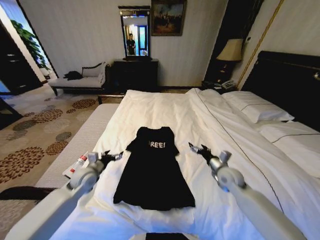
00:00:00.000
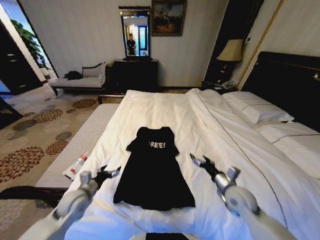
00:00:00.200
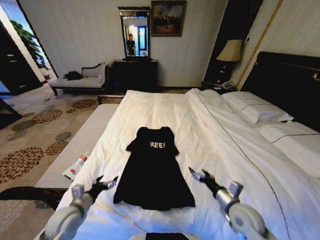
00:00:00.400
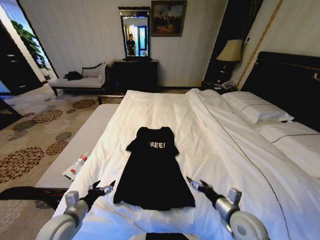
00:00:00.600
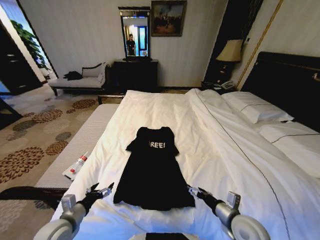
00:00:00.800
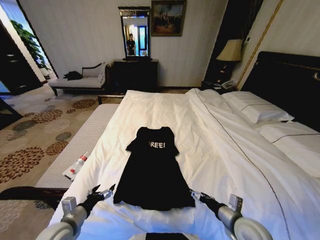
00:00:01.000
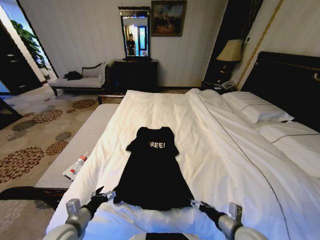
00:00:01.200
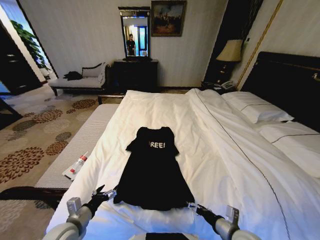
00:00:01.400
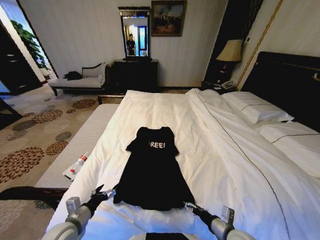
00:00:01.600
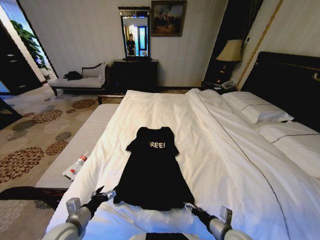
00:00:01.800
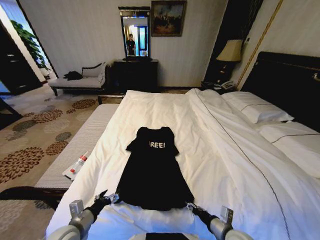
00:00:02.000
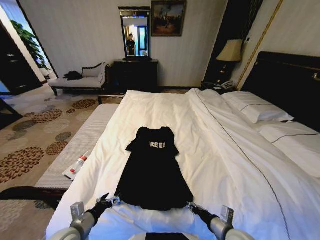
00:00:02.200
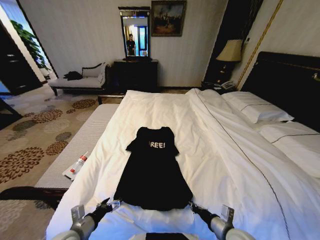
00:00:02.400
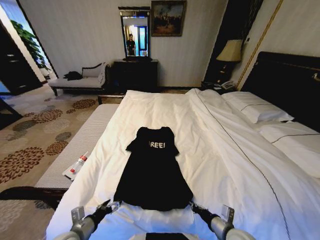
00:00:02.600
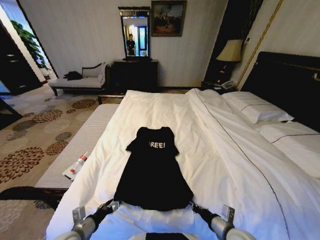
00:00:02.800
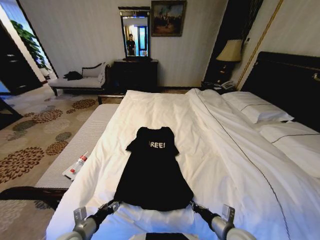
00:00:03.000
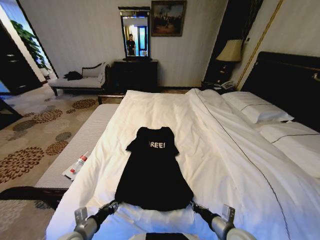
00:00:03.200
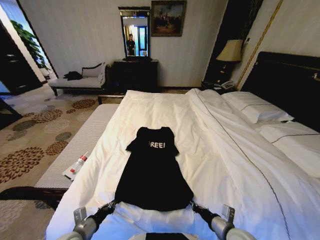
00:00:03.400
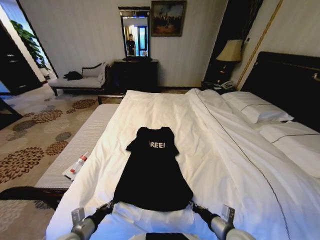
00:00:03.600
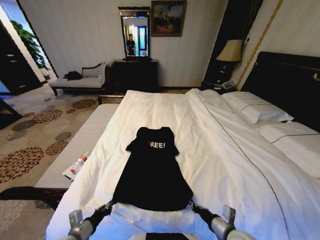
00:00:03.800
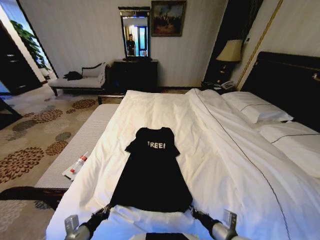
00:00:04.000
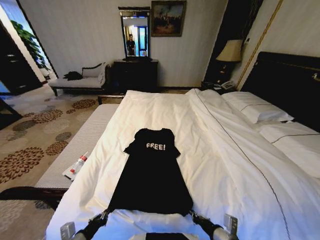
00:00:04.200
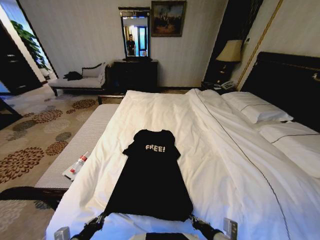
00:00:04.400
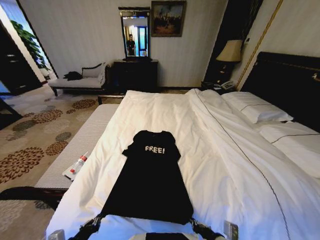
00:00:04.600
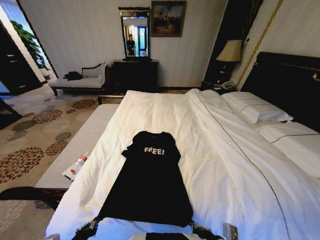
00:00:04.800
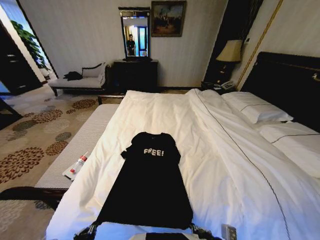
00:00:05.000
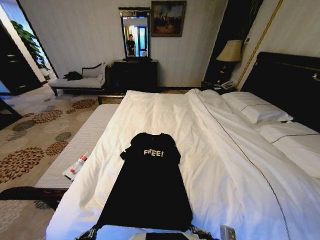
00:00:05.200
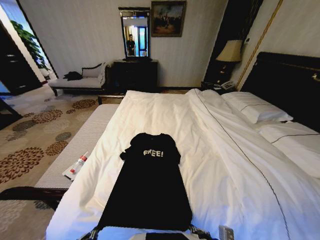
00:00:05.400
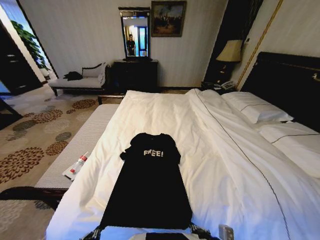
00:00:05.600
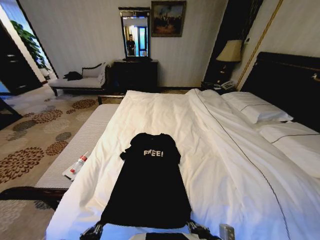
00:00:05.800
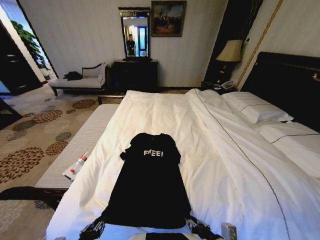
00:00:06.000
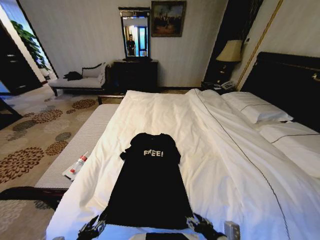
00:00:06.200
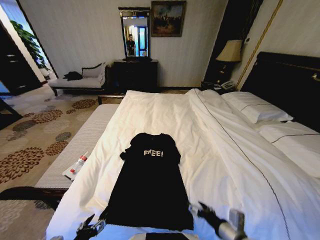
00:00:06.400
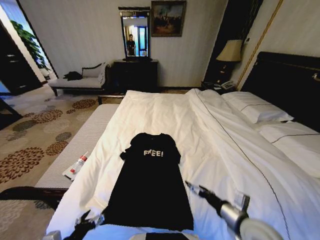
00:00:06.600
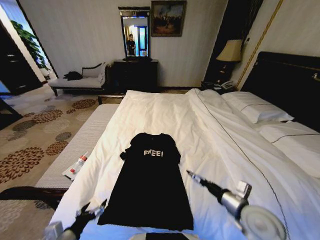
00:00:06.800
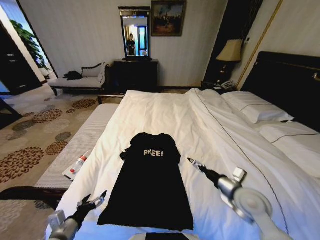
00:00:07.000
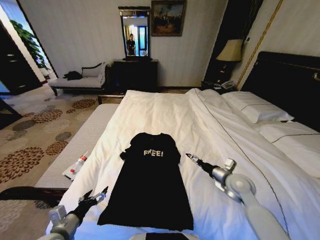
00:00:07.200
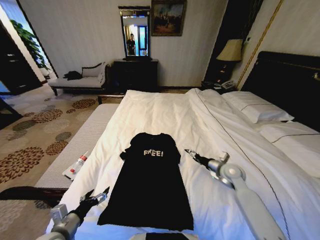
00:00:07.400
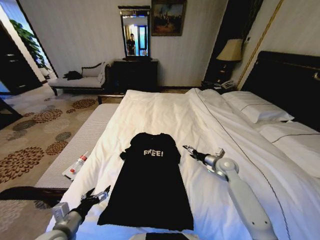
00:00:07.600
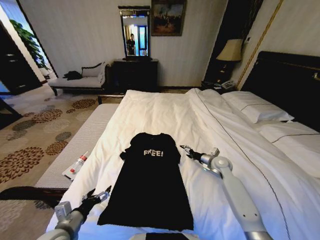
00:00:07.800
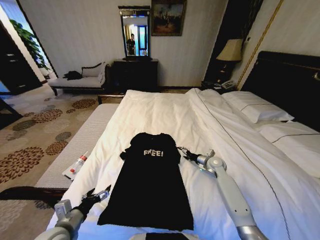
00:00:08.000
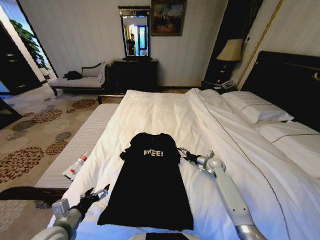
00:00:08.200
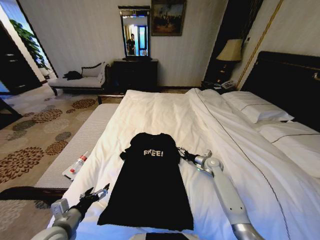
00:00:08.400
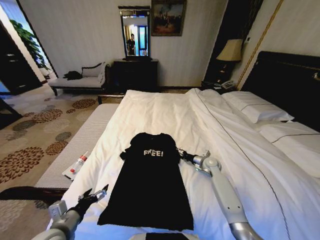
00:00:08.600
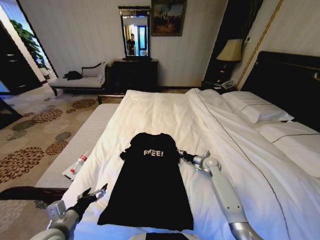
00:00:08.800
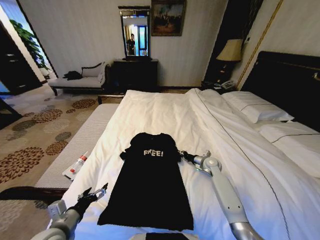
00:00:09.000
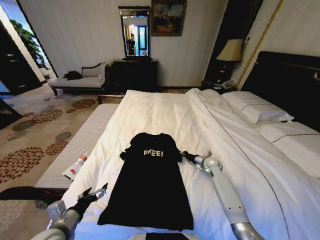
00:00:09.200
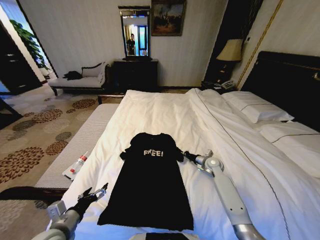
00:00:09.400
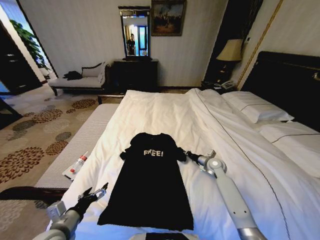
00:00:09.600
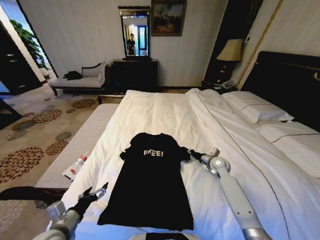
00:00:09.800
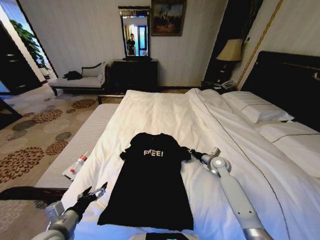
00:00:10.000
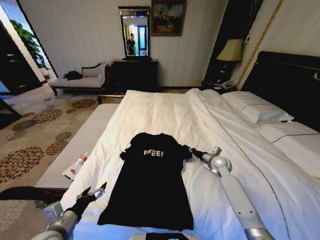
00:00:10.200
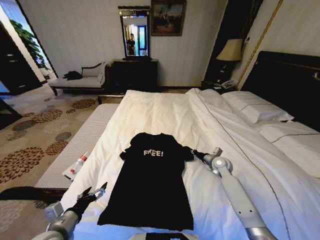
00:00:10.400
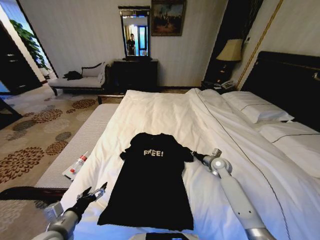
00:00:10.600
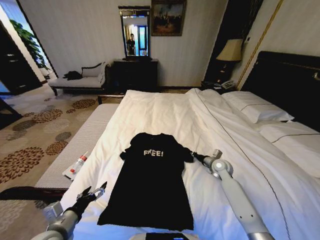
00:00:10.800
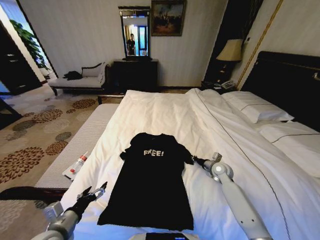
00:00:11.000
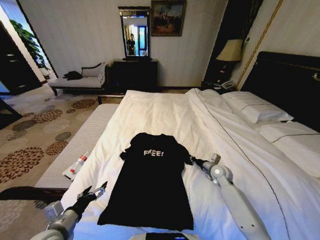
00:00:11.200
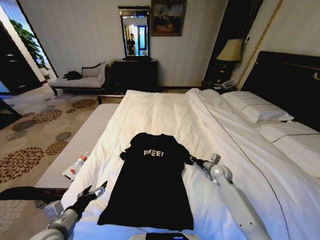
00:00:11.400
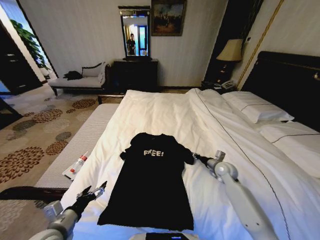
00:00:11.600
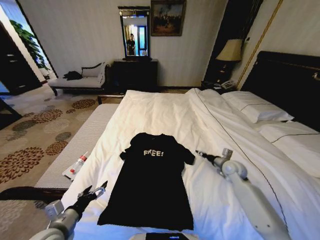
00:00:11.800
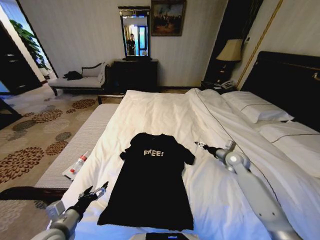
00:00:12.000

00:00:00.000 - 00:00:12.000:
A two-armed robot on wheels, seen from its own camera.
Task of the whole recording: Fold the clothes on the bed.
00:00:00.000 - 00:00:01.600: Both grippers travel together backward, some 20 cm.
00:00:01.600 - 00:00:03.000: The right gripper closes its fingers; the left gripper closes its fingers.
00:00:03.000 - 00:00:04.400: The left gripper goes approximately 5 cm backward, and closes. Meanwhile the right gripper shifts by some 5 cm.
00:00:04.400 - 00:00:06.000: The left gripper opens its fingers.
00:00:06.000 - 00:00:07.600: The right gripper goes some 35 cm forward, and opens, while the left gripper moves forward, some 10 cm, and opens its fingers.
00:00:07.600 - 00:00:09.000: The right gripper moves downward, roughly 5 cm, and closes.
00:00:09.000 - 00:00:10.400: The grippers move only a little.
00:00:10.400 - 00:00:12.000: The right gripper heads upward, covering some 5 cm, and opens its fingers.

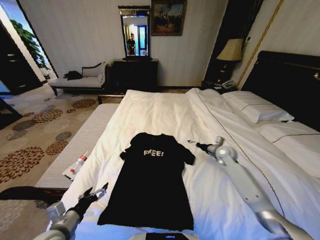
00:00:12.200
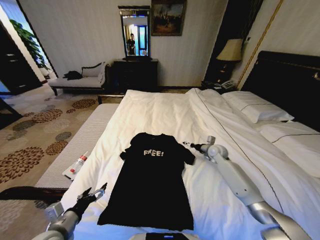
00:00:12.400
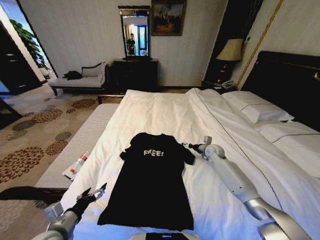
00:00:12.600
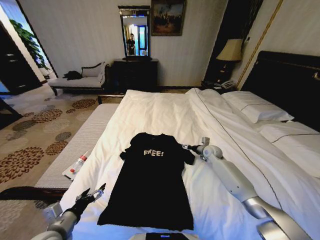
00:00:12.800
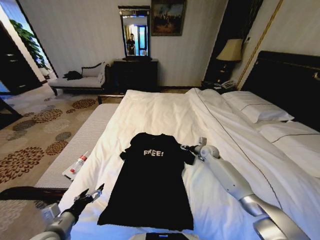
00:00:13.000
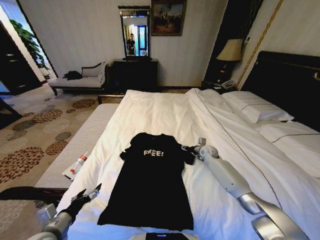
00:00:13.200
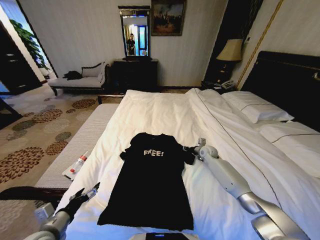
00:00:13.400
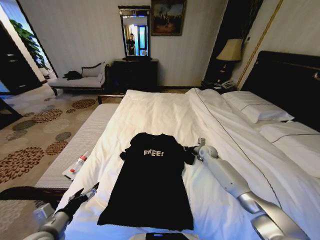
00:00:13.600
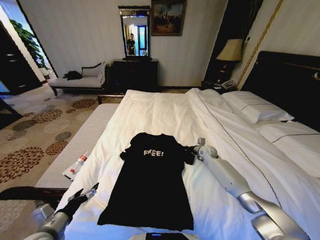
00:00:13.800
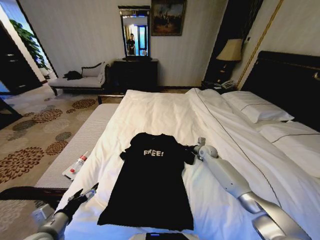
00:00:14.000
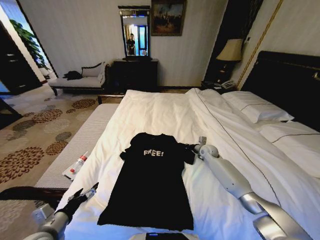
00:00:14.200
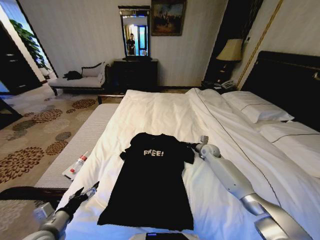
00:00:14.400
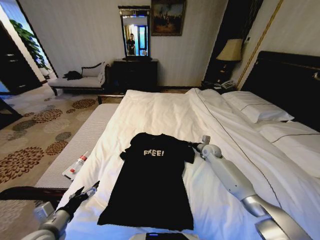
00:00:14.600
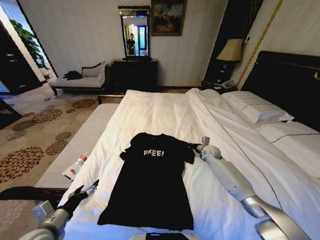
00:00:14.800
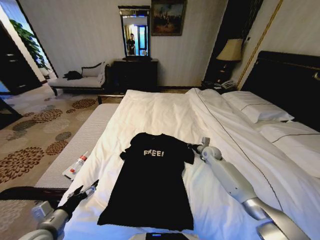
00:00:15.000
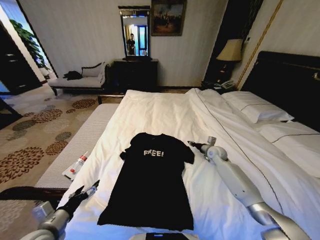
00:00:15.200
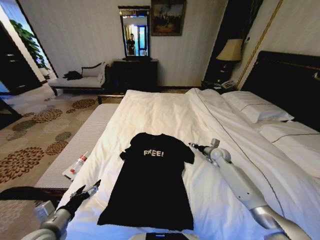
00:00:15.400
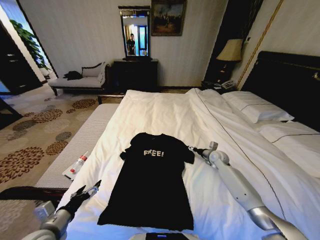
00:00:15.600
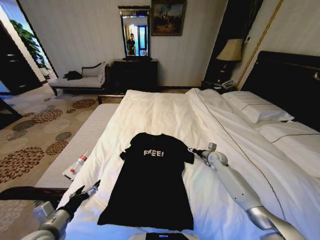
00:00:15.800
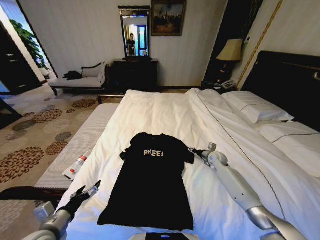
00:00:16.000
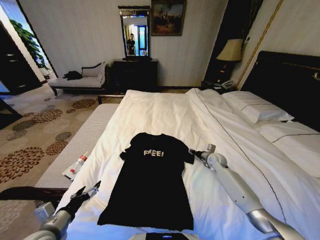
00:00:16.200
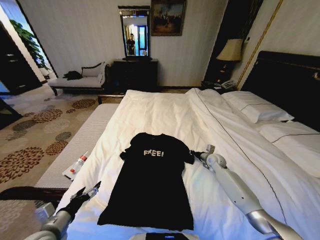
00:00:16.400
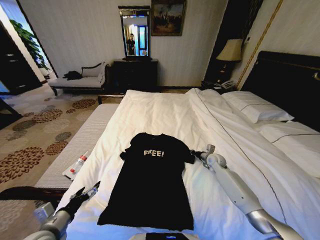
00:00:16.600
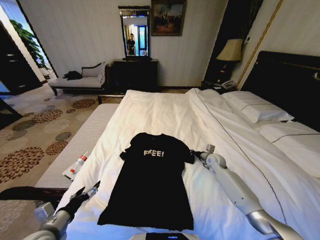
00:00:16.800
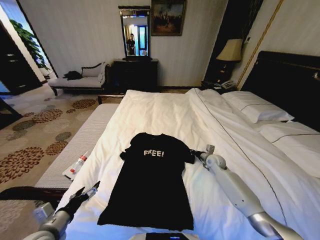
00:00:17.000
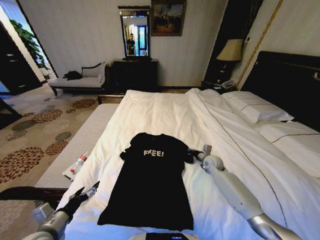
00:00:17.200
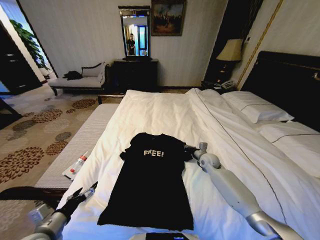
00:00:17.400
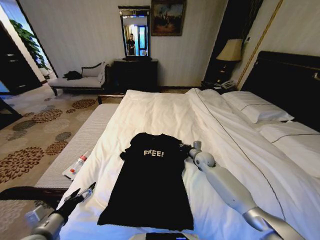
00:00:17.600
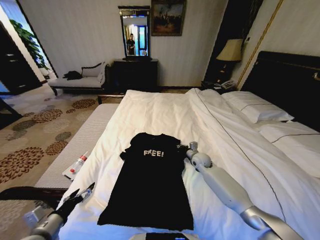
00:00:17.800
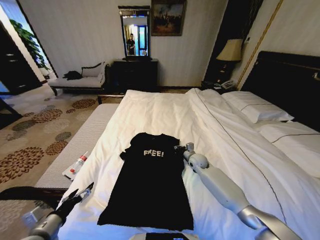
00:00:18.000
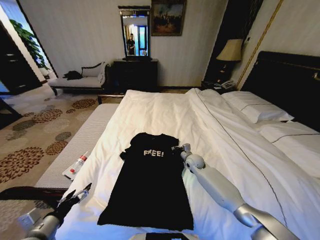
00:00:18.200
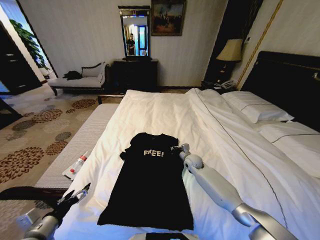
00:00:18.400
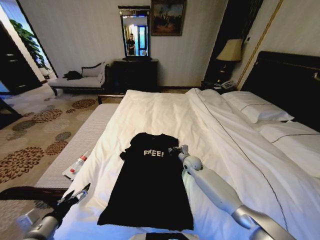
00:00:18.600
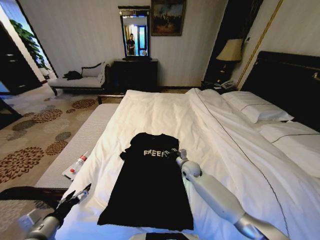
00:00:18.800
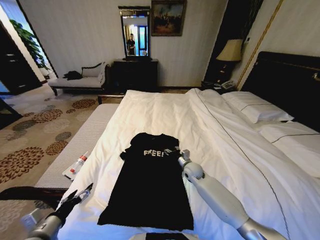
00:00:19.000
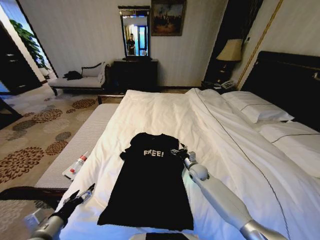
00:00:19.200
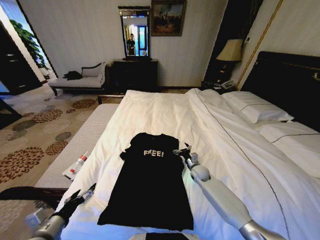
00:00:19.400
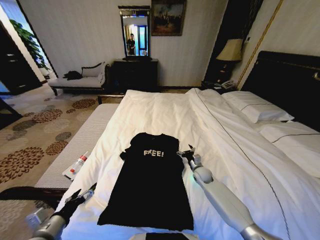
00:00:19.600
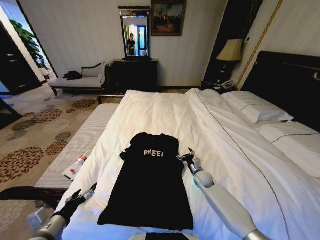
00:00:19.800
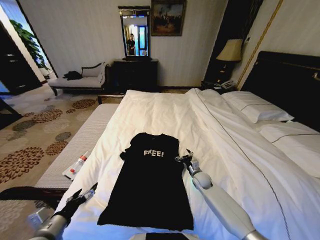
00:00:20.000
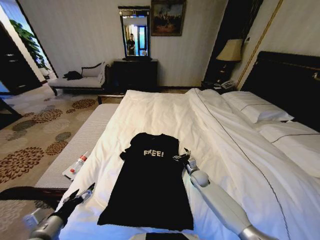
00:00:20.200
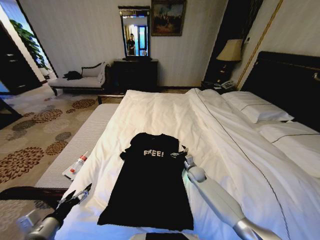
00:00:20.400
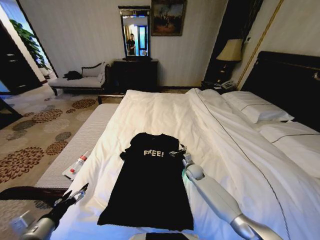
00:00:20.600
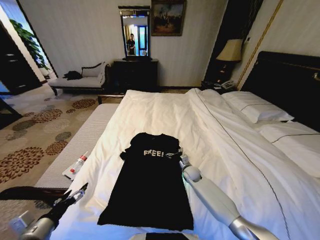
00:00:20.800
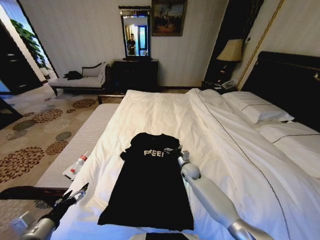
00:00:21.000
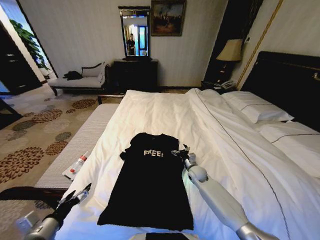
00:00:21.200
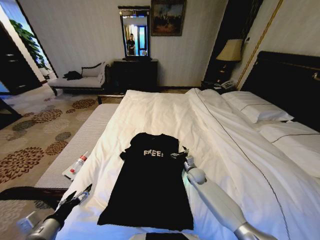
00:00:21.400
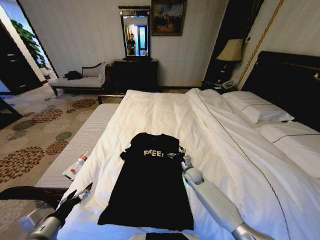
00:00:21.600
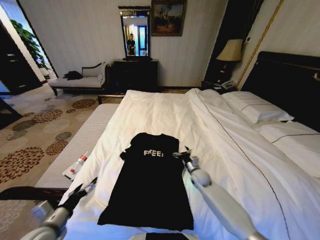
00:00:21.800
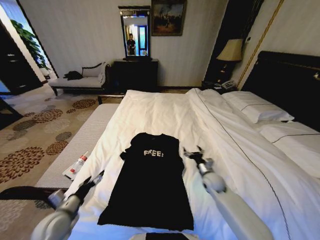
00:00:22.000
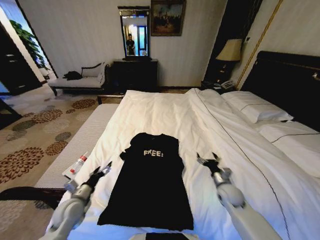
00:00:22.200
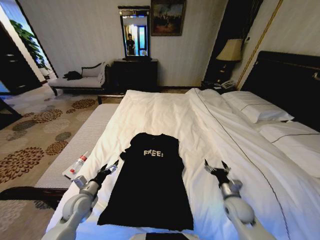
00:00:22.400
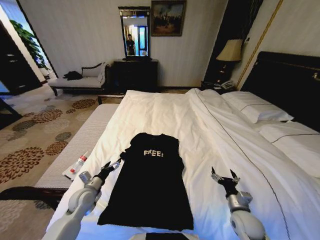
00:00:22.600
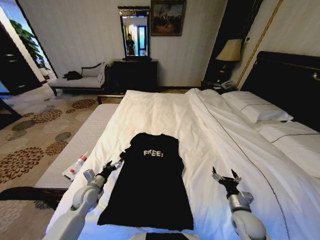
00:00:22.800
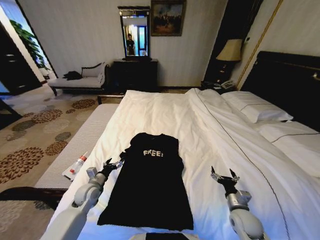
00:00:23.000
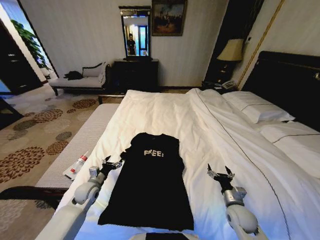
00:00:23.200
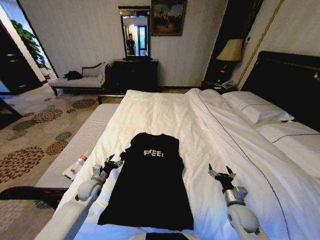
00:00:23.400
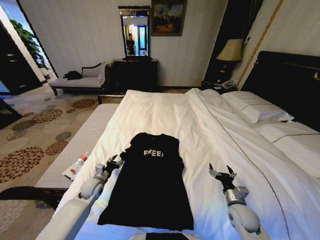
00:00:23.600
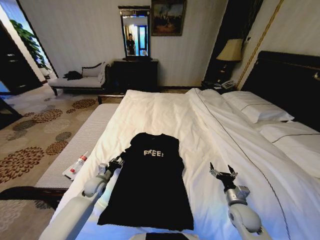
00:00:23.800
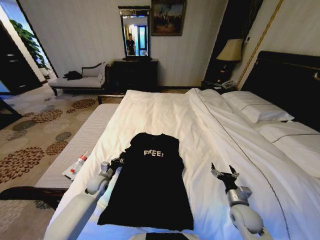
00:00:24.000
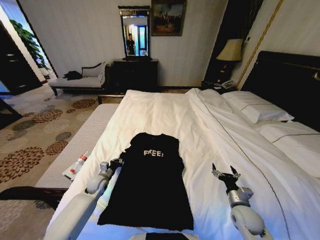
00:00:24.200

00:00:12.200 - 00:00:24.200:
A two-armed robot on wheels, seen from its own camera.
Task of the whole recording: Fold the clothes on the bed.
00:00:12.200 - 00:00:13.800: The right gripper moves downward, to the left and forward, some 10 cm, and closes its fingers.
00:00:13.800 - 00:00:15.200: The right gripper changes place by some 5 cm.
00:00:15.200 - 00:00:16.600: The right gripper opens, then closes once more.
00:00:16.600 - 00:00:18.200: The right gripper is displaced to the left by approximately 10 cm.
00:00:18.200 - 00:00:19.800: The right gripper shifts approximately 10 cm downward and backward, and opens its fingers.
00:00:21.200 - 00:00:22.600: The right gripper shifts approximately 25 cm backward and to the right. The left gripper travels forward and downward by about 20 cm.
00:00:22.600 - 00:00:24.200: The left gripper travels forward and downward by roughly 10 cm, and closes up.
